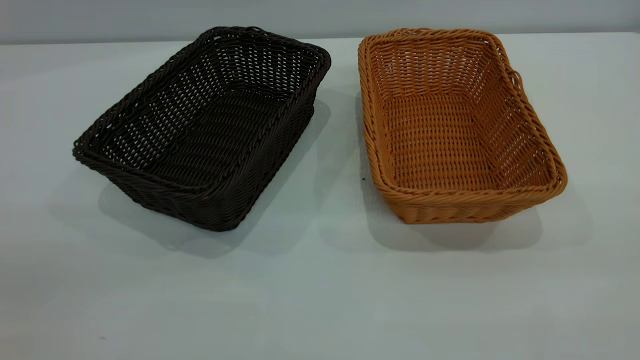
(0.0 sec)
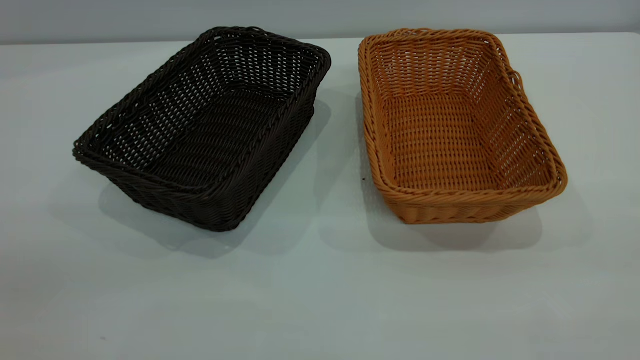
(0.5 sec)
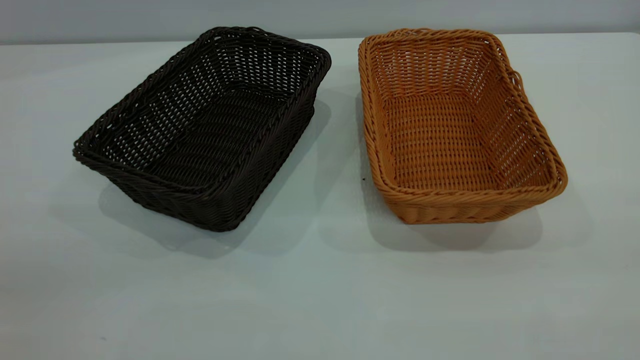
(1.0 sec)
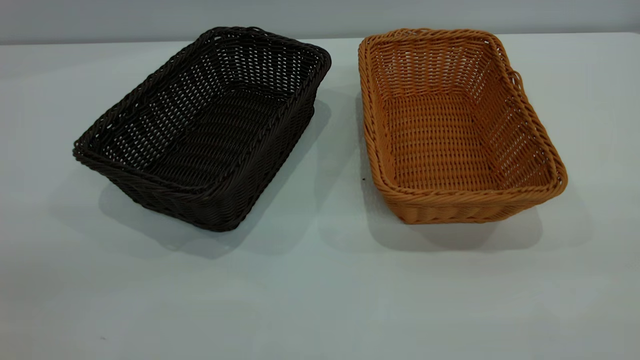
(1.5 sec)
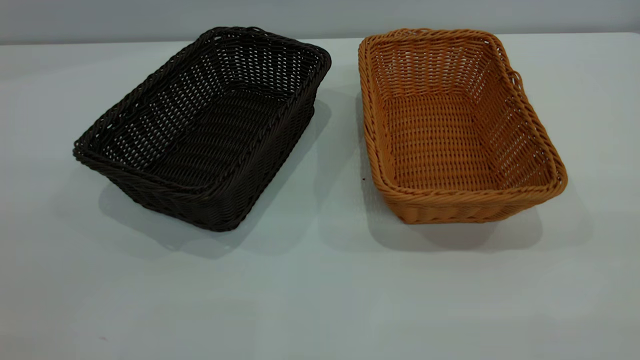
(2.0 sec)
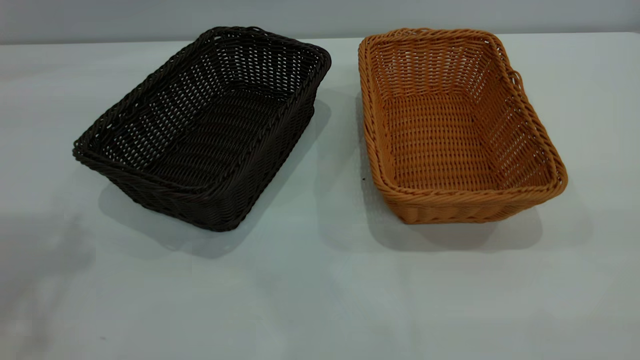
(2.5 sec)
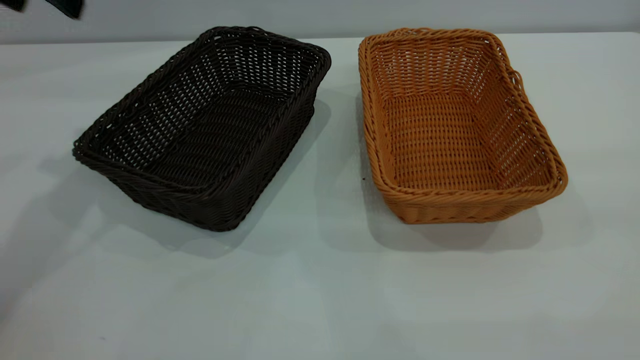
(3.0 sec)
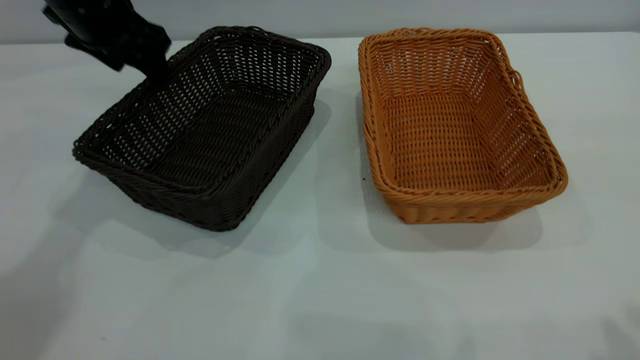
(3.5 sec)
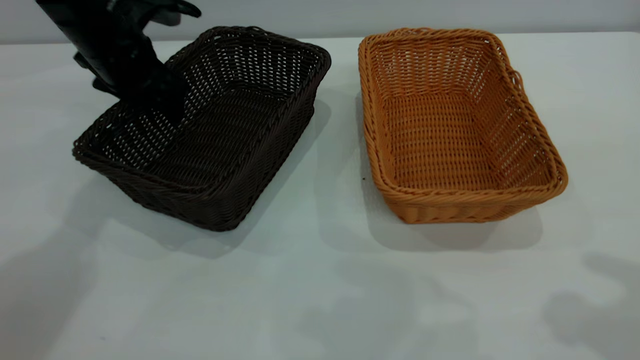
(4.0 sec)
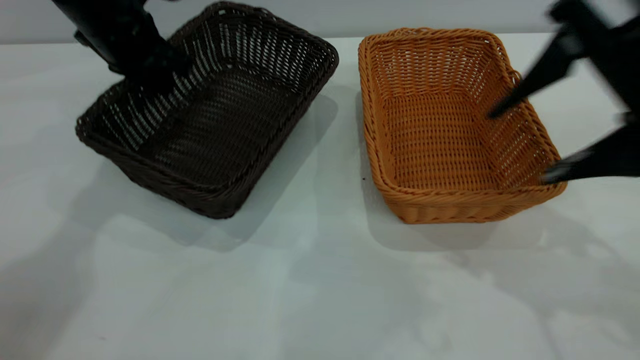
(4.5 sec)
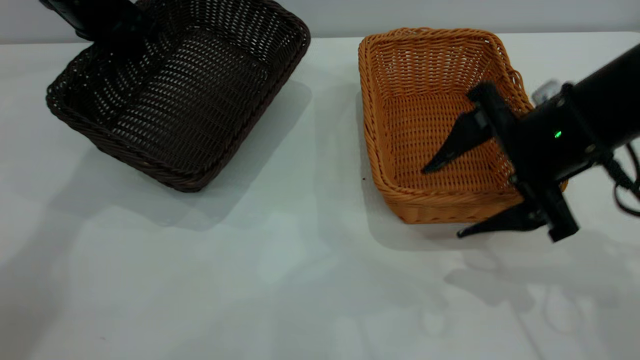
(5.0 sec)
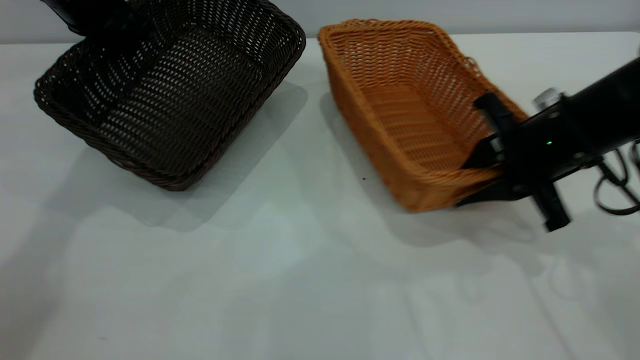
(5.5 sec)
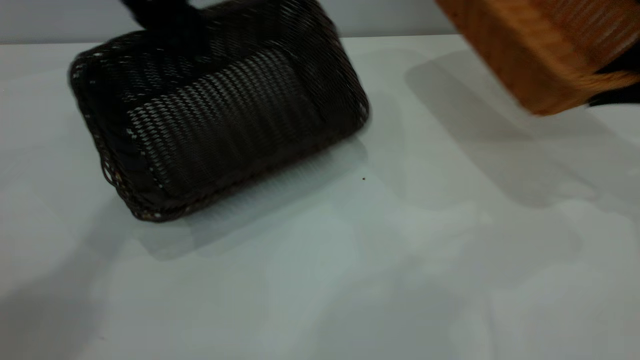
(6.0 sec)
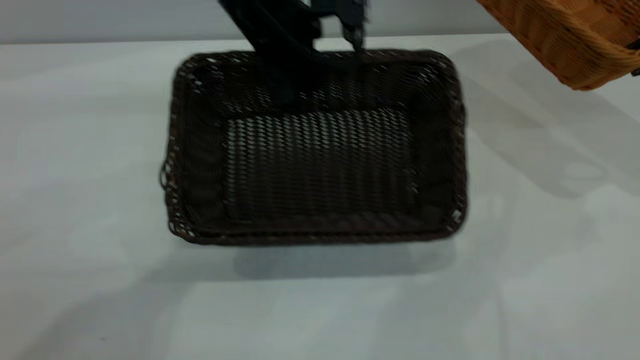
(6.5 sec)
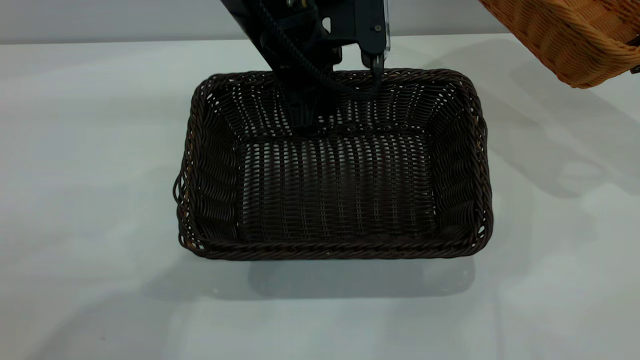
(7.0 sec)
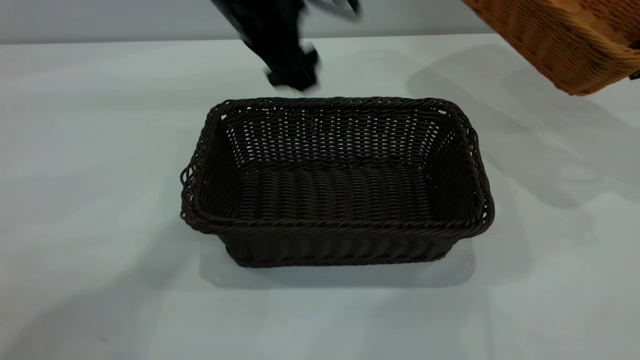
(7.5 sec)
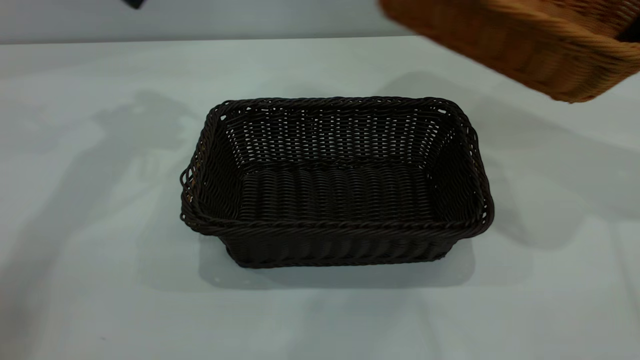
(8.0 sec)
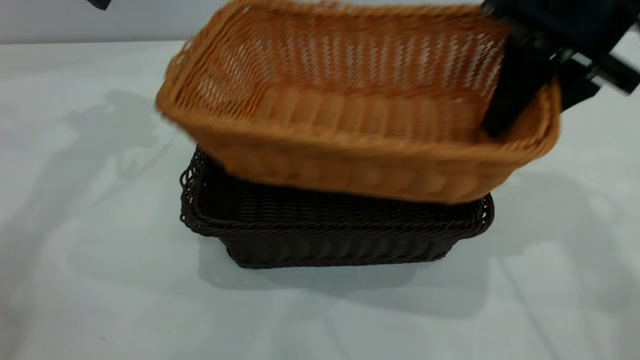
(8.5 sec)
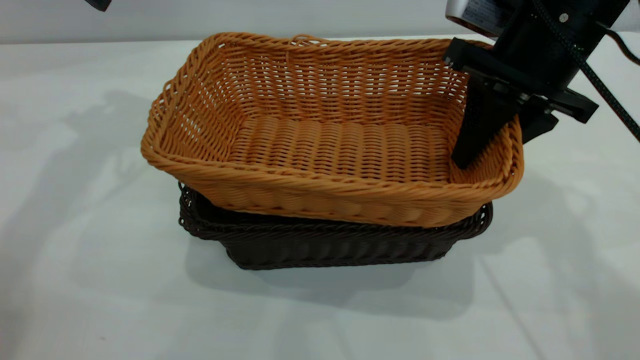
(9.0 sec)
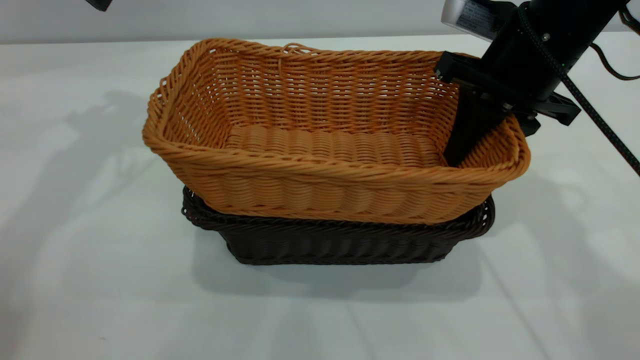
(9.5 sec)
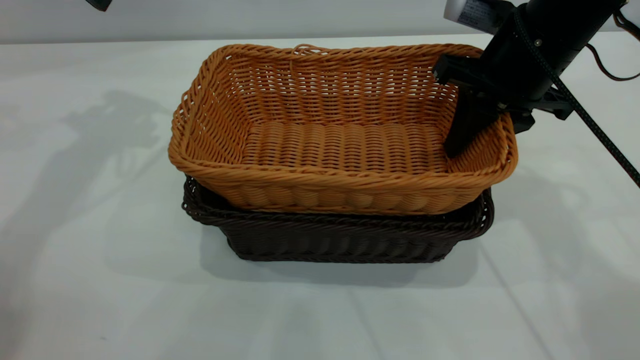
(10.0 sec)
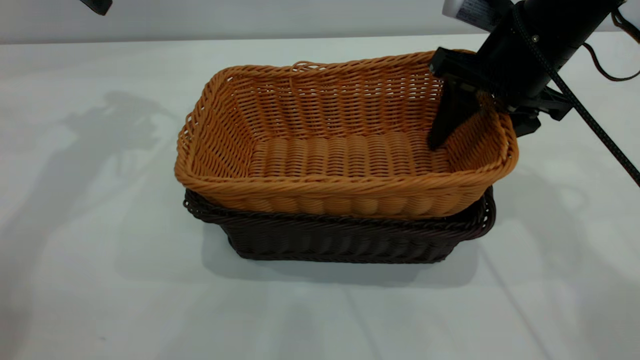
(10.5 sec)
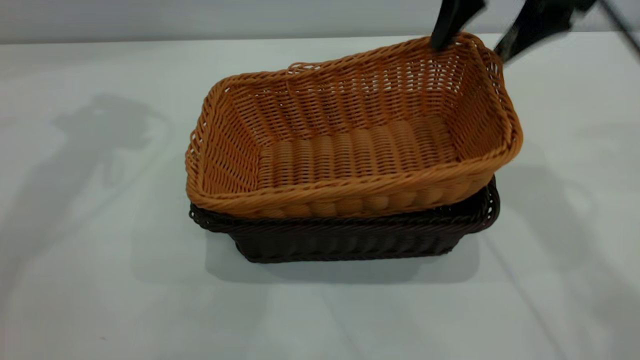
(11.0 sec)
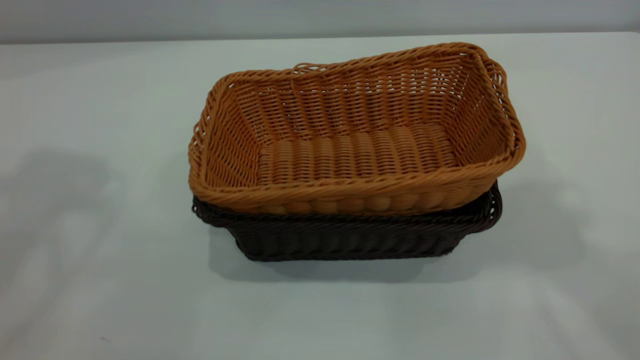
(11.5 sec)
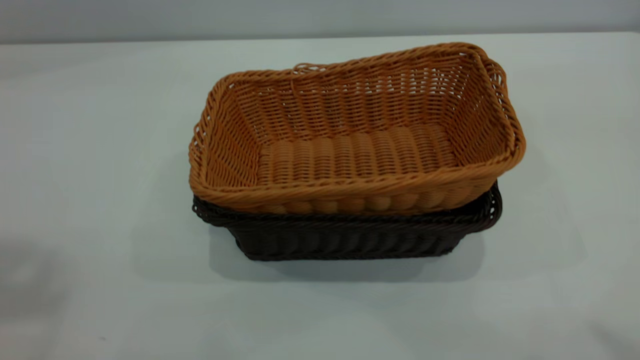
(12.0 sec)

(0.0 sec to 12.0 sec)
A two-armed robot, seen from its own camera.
Task of the whole recording: the left gripper grasp the black basket and place it in the center of the table, the right gripper grasp the brown basket and place it inside the black one.
Step, 0.0 sec - 5.5 sec: Pick up the light basket with the right gripper.
Step, 6.0 sec - 7.5 sec: Move the dark basket to the center of view.
Step, 8.0 sec - 10.5 sec: Place the light basket on the dark basket.
2.0 sec - 4.0 sec: The left gripper shifts some 50 cm forward and downward.
4.0 sec - 6.0 sec: The right gripper is displaced forward, downward and to the right by roughly 25 cm, and closes. Meanwhile the left gripper heads upward and to the right, covering approximately 10 cm, and closes up.
6.0 sec - 8.0 sec: The left gripper is displaced to the left and upward by roughly 10 cm, and opens its fingers, while the right gripper shifts approximately 10 cm upward.
8.0 sec - 10.0 sec: The right gripper heads to the left and downward, covering about 15 cm.
10.0 sec - 12.0 sec: The grippers both shift upward and backward by approximately 40 cm. The right gripper opens.
